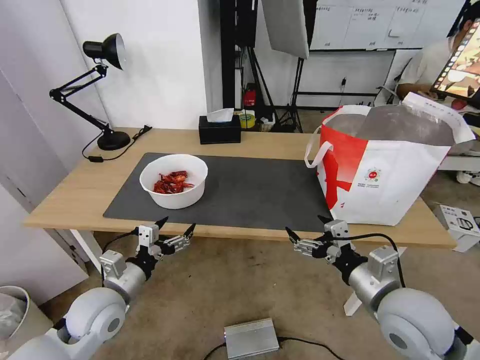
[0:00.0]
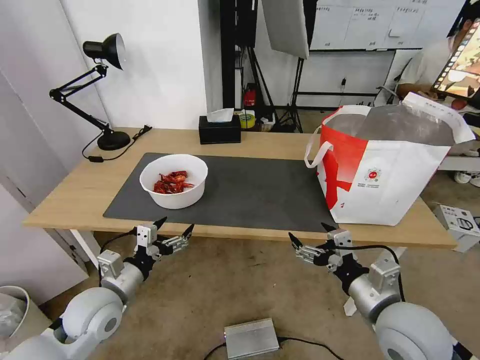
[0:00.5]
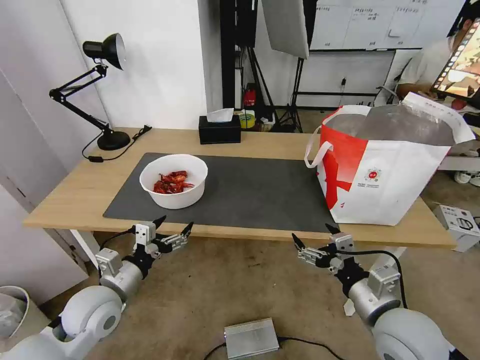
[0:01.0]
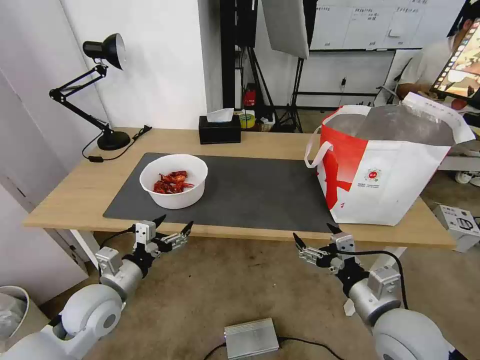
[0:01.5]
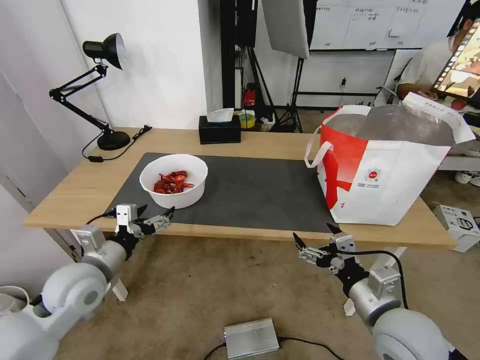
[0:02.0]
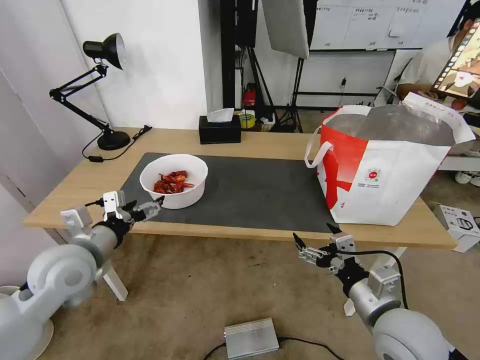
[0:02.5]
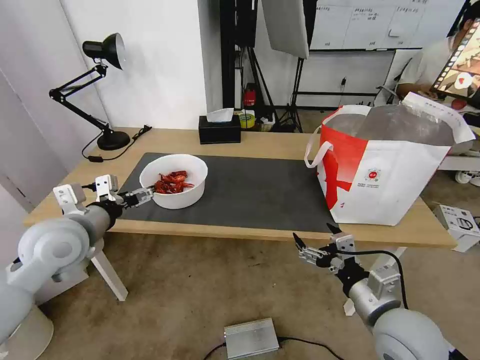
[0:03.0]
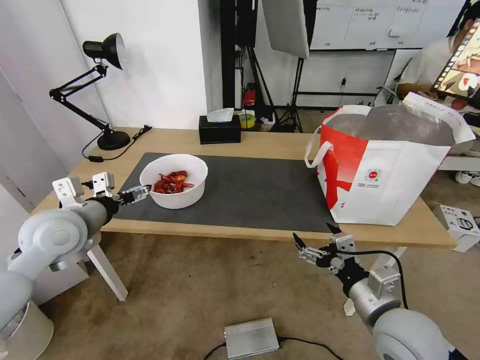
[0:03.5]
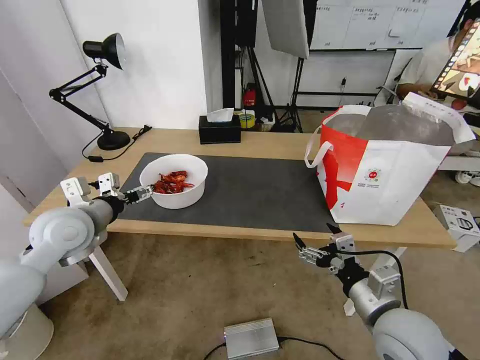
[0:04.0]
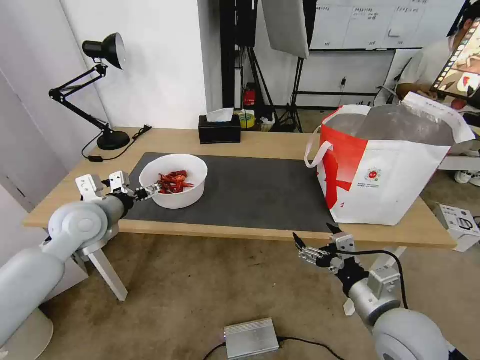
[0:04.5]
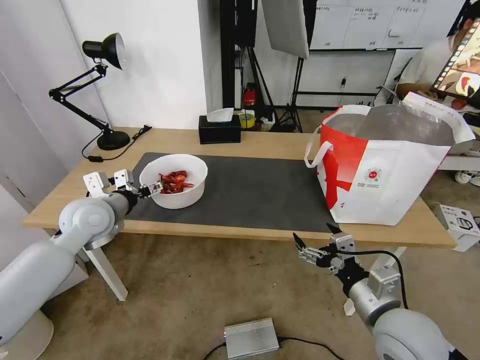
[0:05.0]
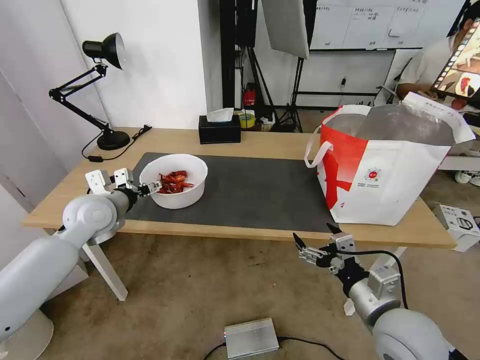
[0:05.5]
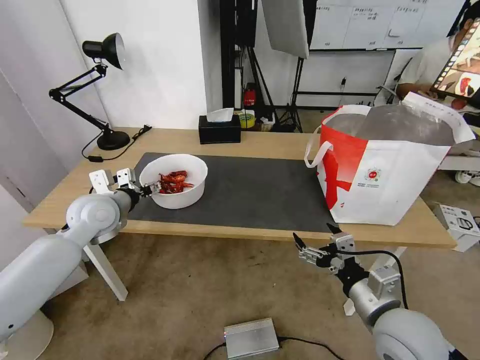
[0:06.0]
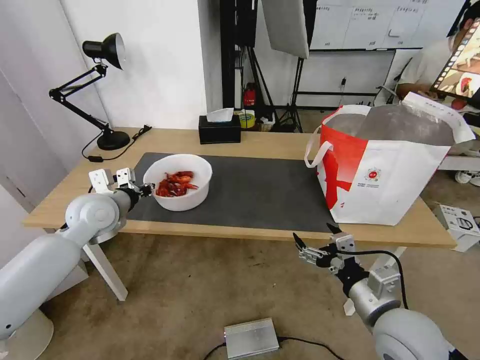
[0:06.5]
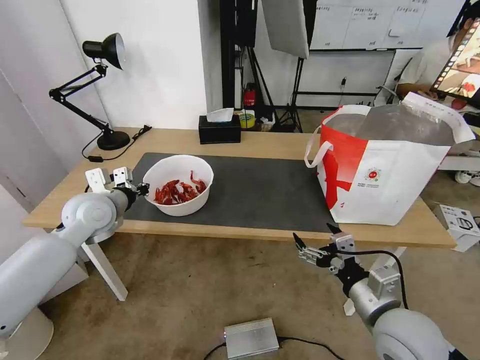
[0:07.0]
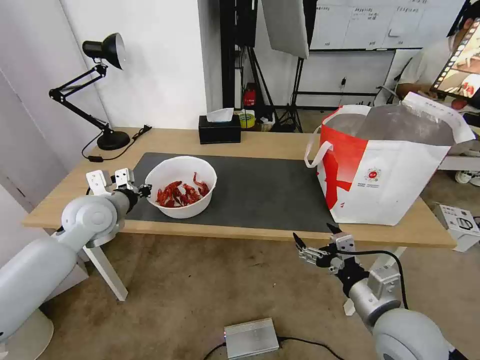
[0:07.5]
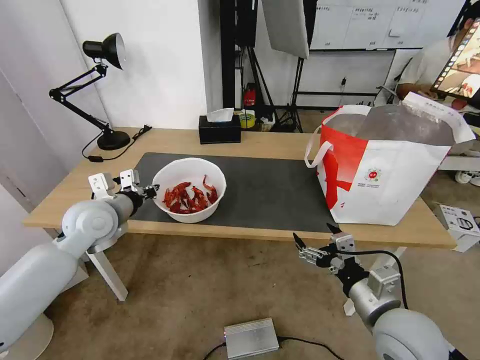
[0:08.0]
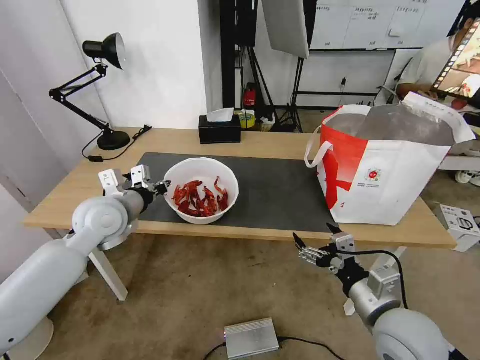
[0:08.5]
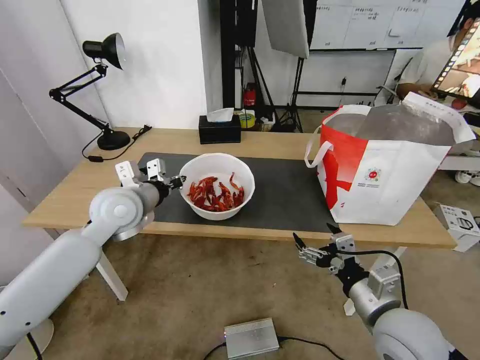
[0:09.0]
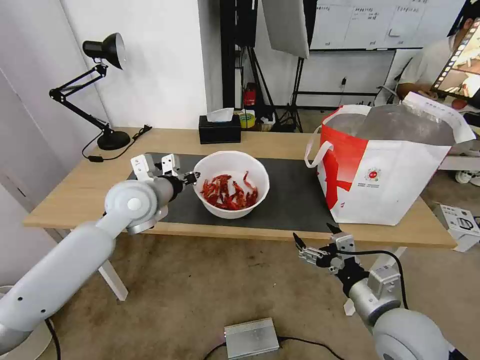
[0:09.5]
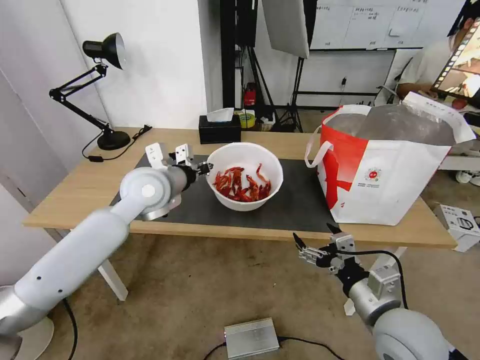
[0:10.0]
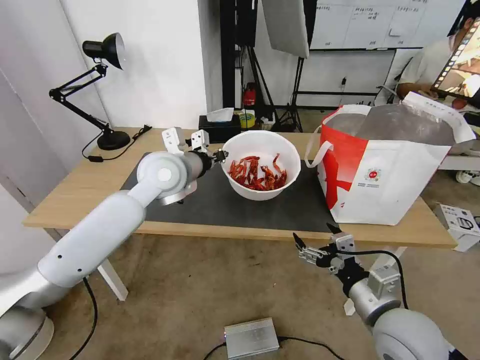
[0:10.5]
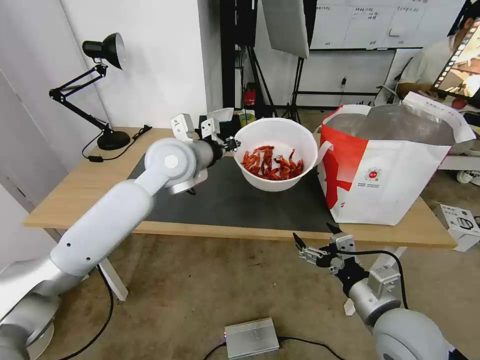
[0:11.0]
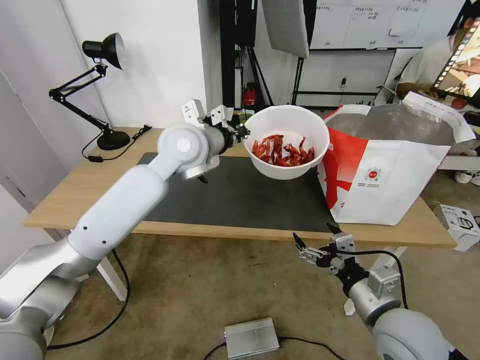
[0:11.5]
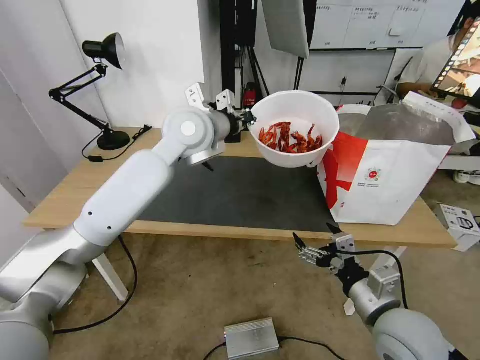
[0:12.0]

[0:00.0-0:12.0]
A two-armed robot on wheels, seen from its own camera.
Task of the whole recording: Pick up the trash from the table and place it into the takeout bag.
0:00.0 to 0:02.0: The left gripper shifts by some 5 cm.
0:02.0 to 0:04.0: The left gripper goes roughly 10 cm upward and forward.
0:04.0 to 0:06.0: The left gripper goes approximately 5 cm forward.
0:06.0 to 0:08.0: The left gripper closes up.
0:08.0 to 0:10.0: The left gripper heads to the right and upward, covering some 15 cm.
0:10.0 to 0:12.0: The left gripper is displaced upward and to the right by roughly 15 cm.

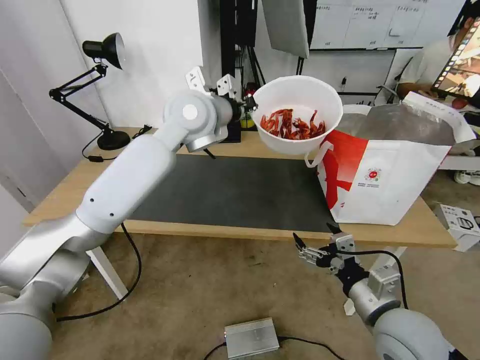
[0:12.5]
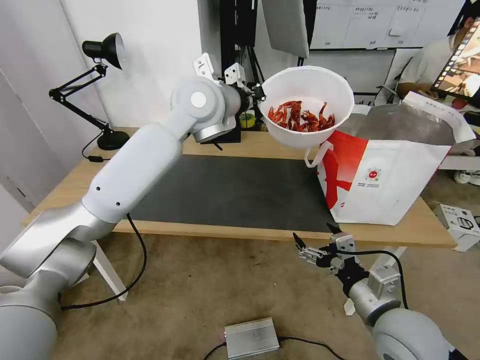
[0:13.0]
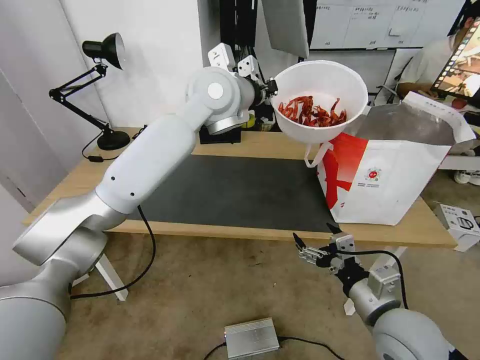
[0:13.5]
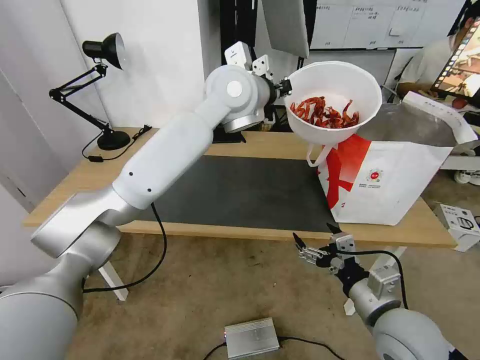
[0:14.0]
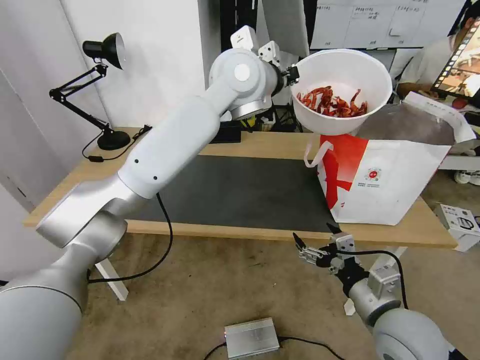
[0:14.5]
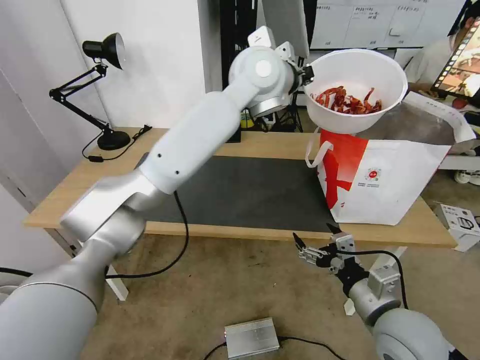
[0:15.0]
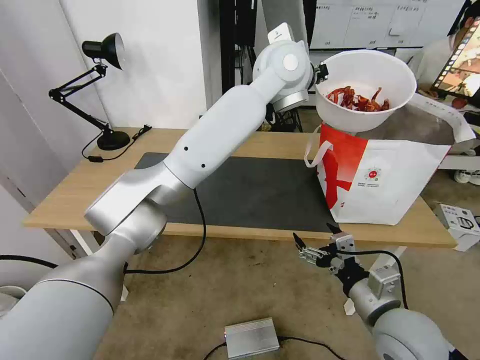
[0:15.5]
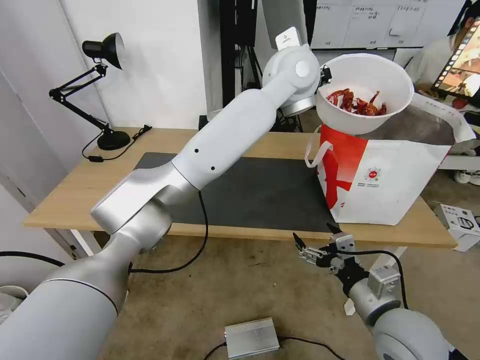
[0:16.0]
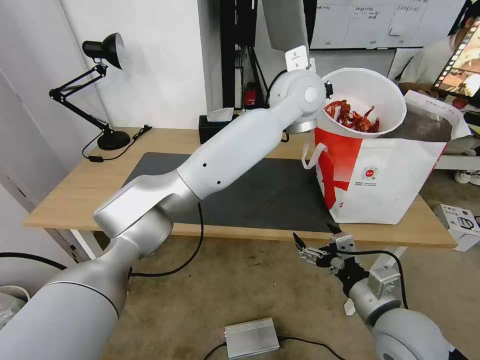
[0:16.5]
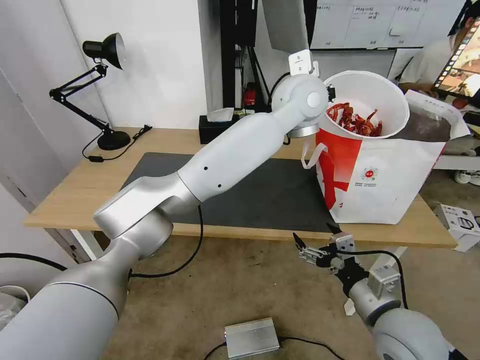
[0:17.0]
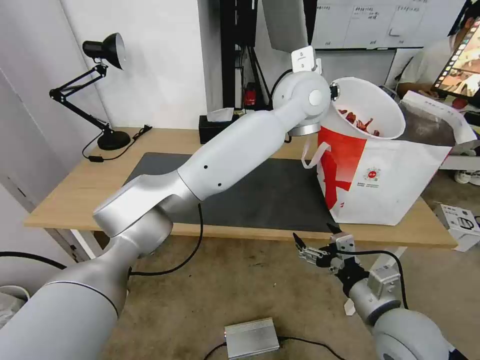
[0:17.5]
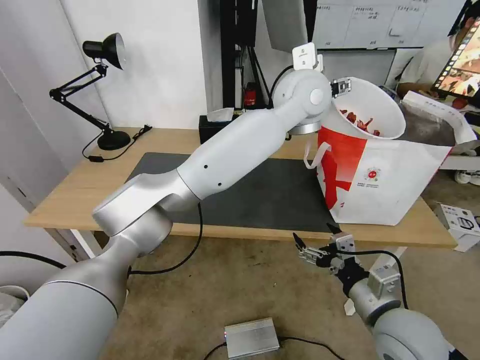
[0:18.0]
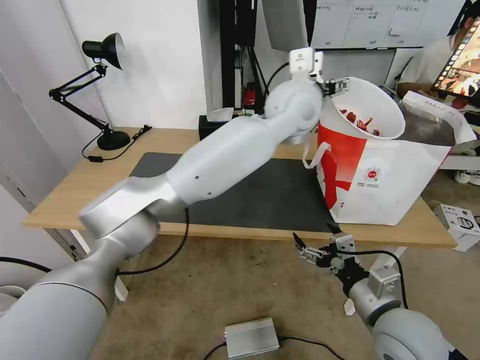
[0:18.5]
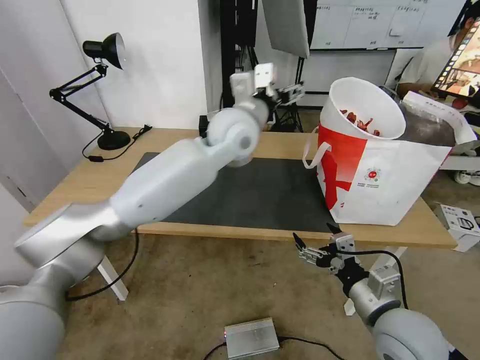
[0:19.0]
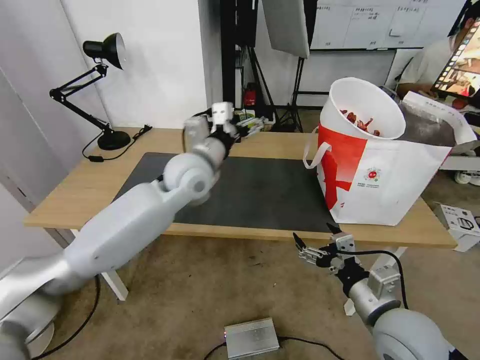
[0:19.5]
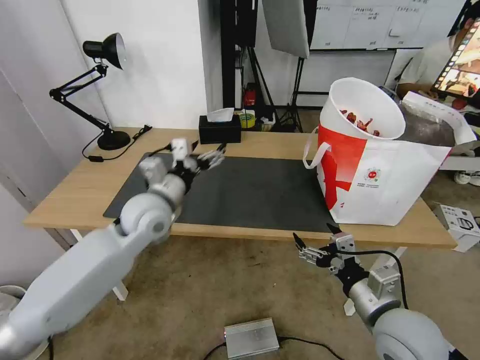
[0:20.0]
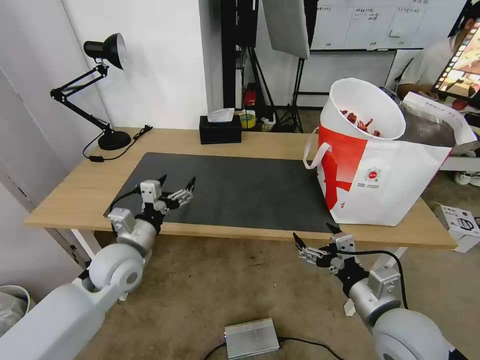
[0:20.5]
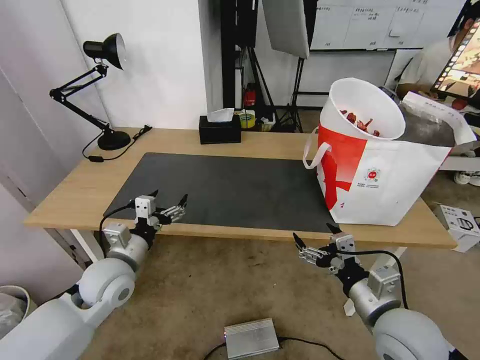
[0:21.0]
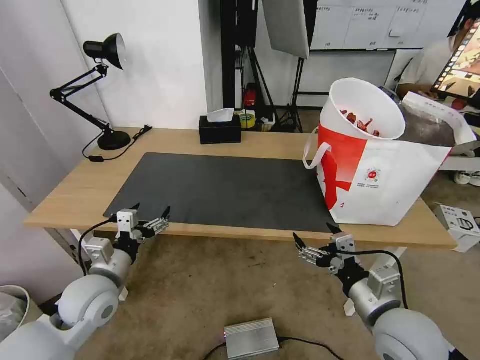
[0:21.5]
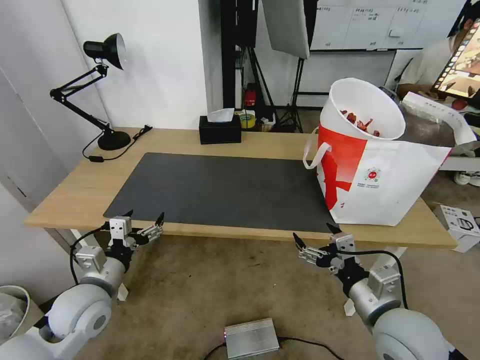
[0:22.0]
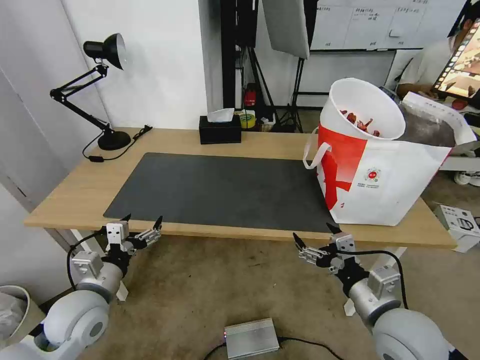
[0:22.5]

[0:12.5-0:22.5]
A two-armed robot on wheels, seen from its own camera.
Task of the whole recording: Pick up the trash from the table and place it into the takeout bag.
0:12.5 to 0:14.5: The left gripper shifts some 10 cm to the right and upward.
0:14.5 to 0:16.5: The left gripper goes roughly 10 cm to the right.
0:16.5 to 0:18.5: The left gripper opens its fingers.
0:18.5 to 0:20.5: The left gripper shifts approximately 50 cm to the left, downward and backward.
0:20.5 to 0:22.5: The left gripper goes approximately 10 cm backward.
